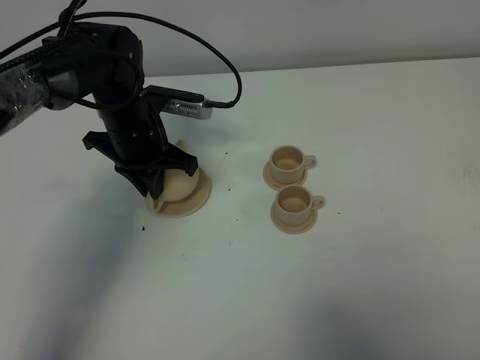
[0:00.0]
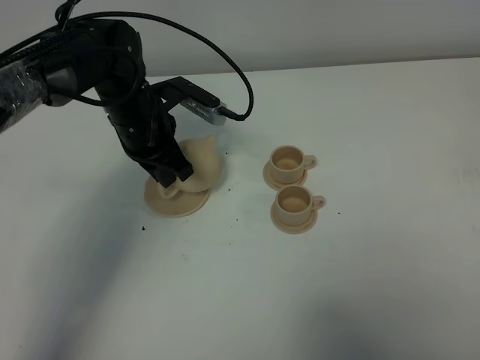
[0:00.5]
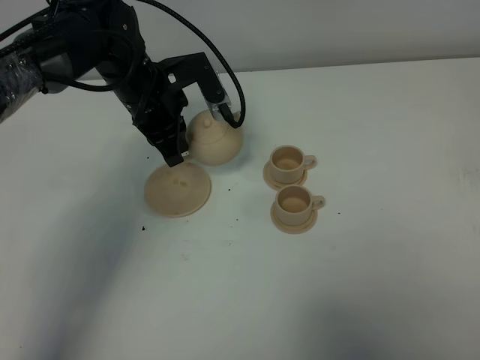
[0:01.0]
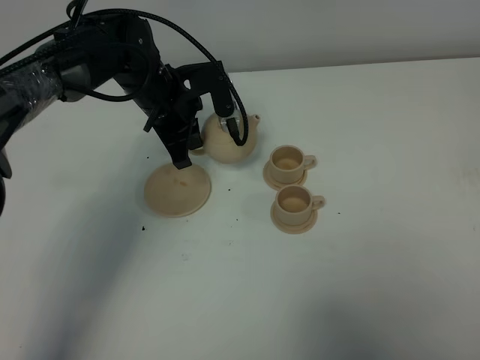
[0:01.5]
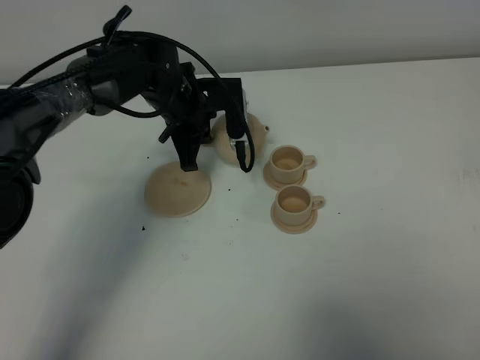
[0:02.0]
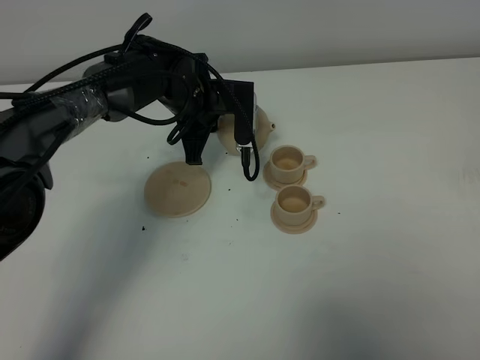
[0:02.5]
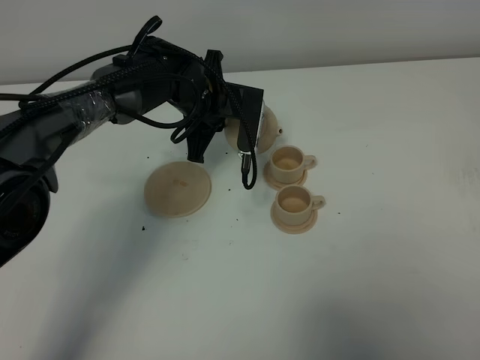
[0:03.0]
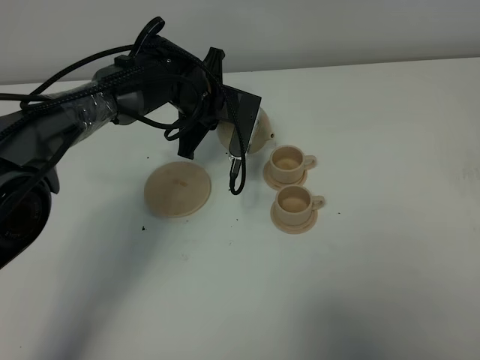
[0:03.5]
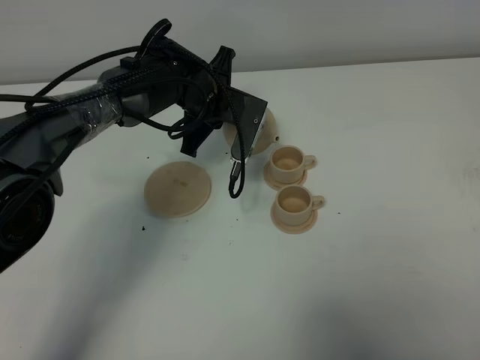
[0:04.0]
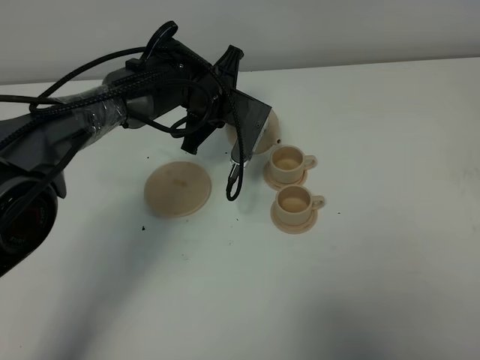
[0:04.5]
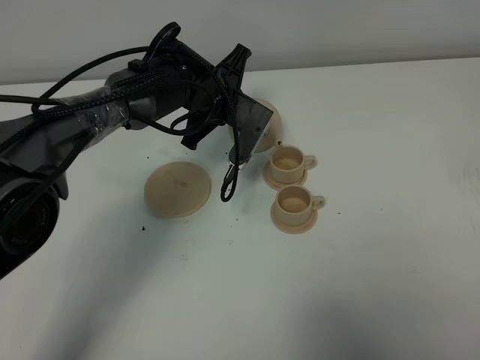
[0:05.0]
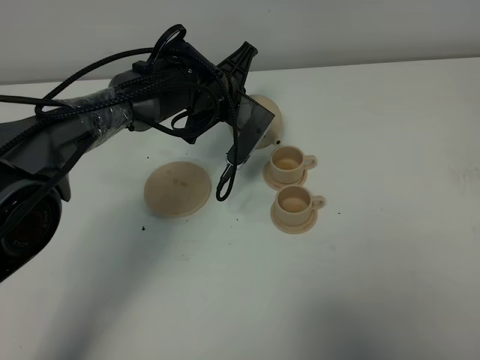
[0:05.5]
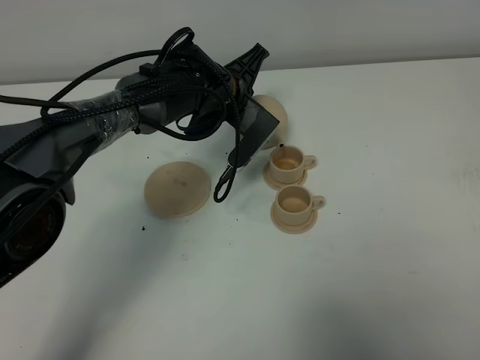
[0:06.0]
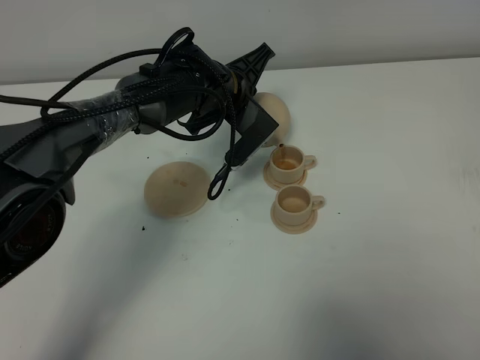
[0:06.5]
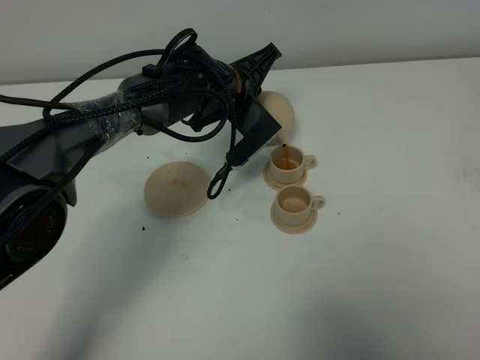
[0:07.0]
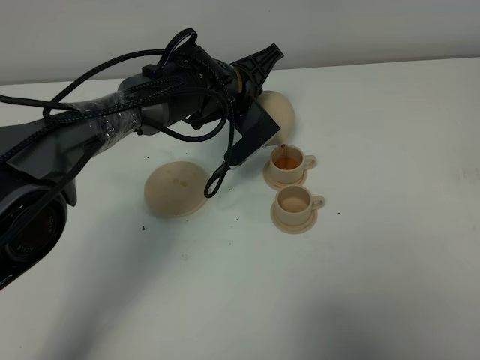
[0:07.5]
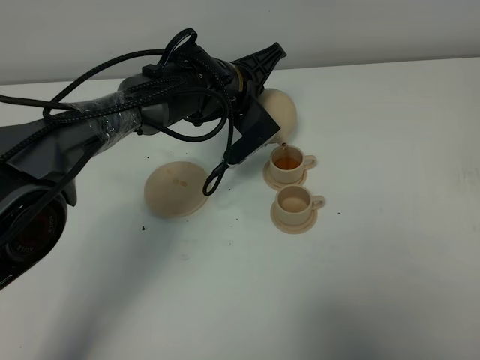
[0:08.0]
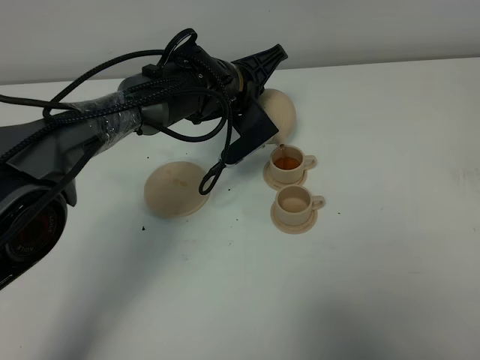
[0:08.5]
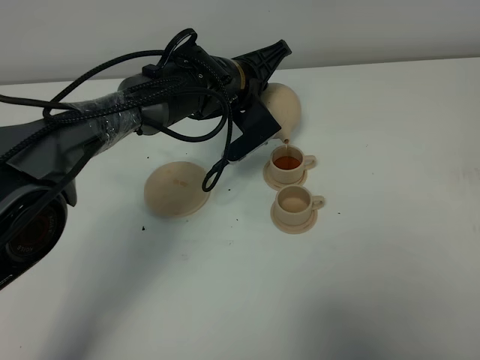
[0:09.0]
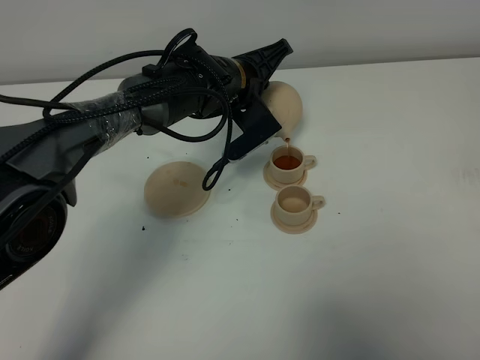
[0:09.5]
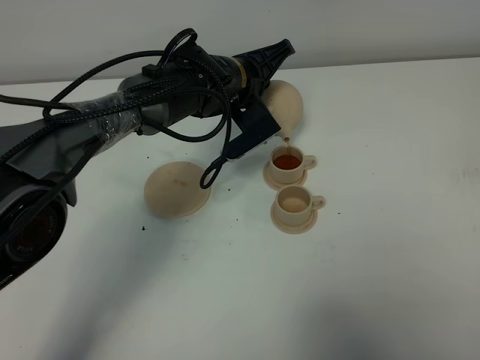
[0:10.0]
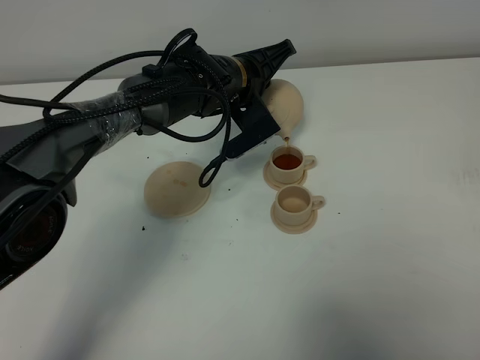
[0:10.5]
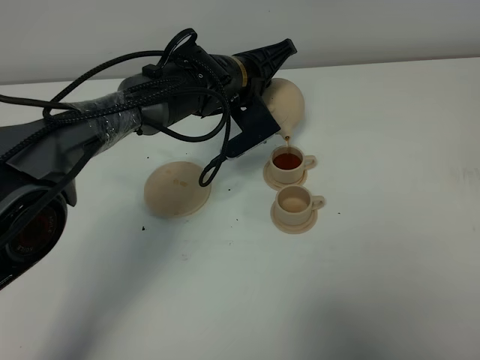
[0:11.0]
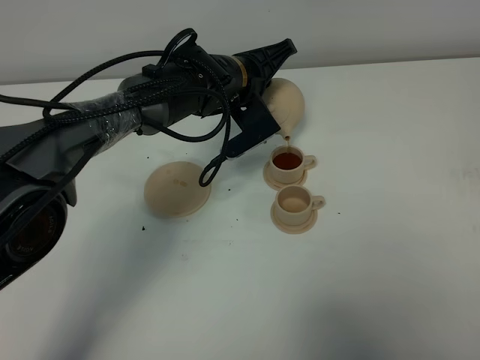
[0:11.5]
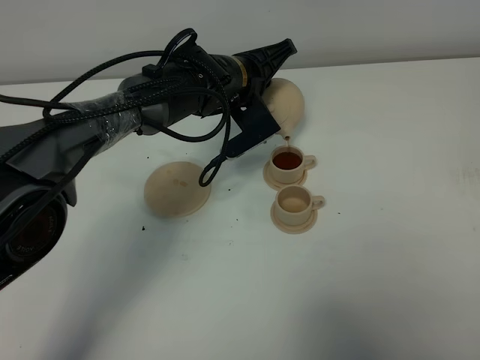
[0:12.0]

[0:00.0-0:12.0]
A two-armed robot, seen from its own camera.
Task of the whole recording: grasp the brown teapot and pour the tea into the two brown teacups one by one, put the brown teapot back in its original place.
0:00.0 to 0:02.0: The left gripper ends up approximately 5 cm from where it was.
0:06.0 to 0:08.0: The grippers move only a little.
0:08.0 to 0:10.0: The grippers stay close to where they were, moving slightly.
0:10.0 to 0:12.0: Neither gripper changes place.

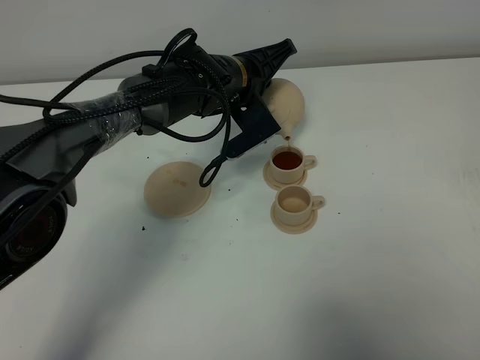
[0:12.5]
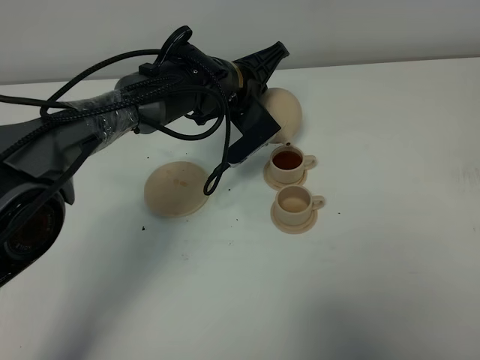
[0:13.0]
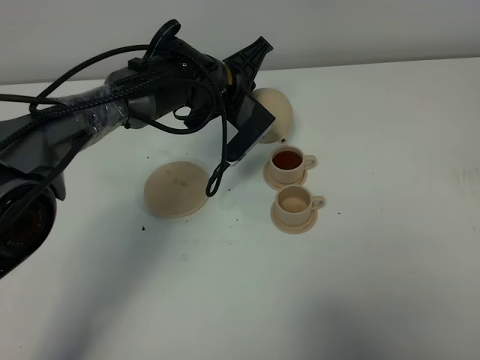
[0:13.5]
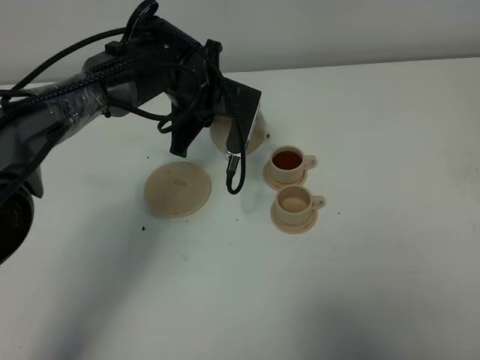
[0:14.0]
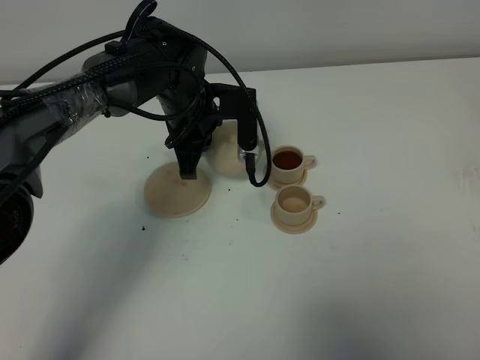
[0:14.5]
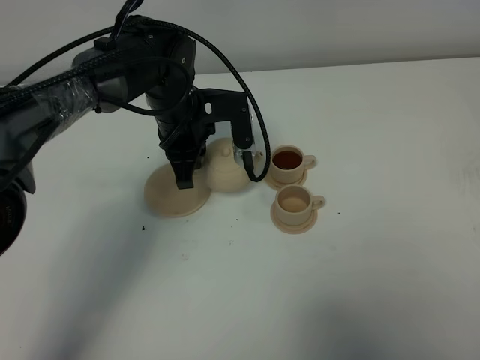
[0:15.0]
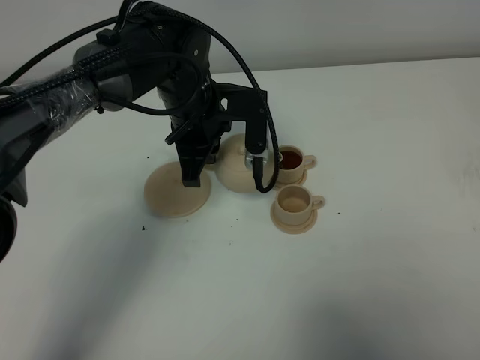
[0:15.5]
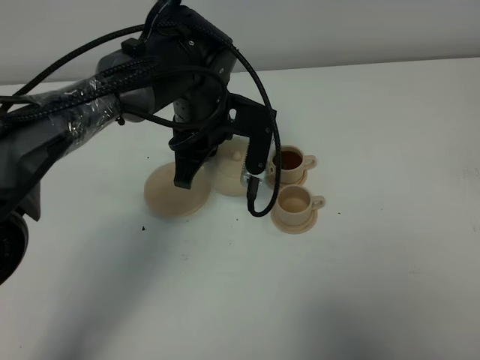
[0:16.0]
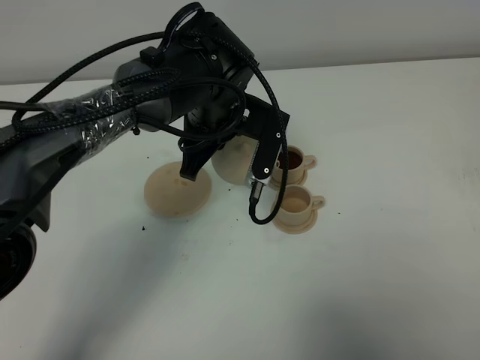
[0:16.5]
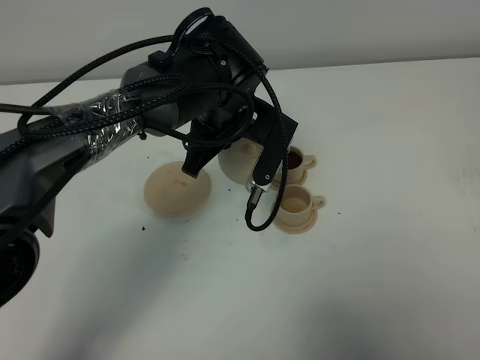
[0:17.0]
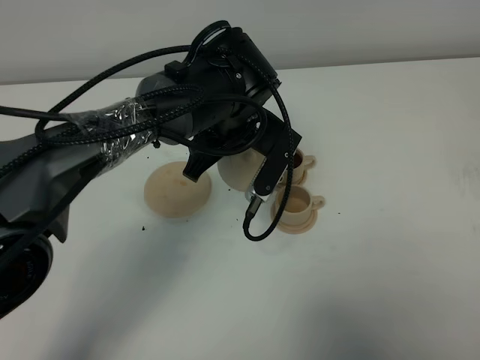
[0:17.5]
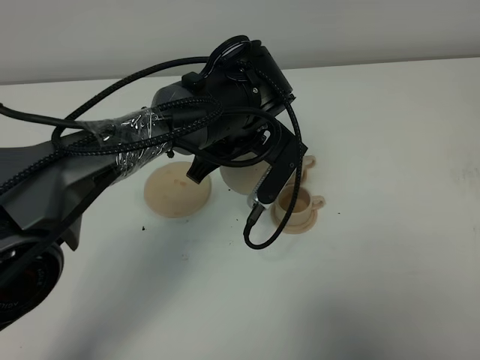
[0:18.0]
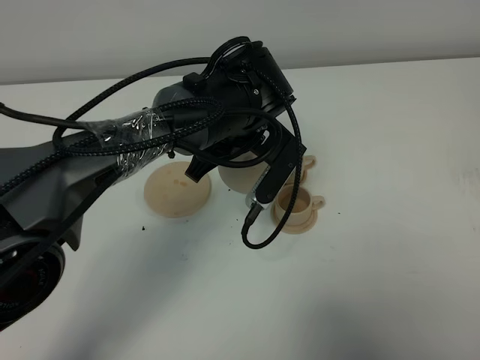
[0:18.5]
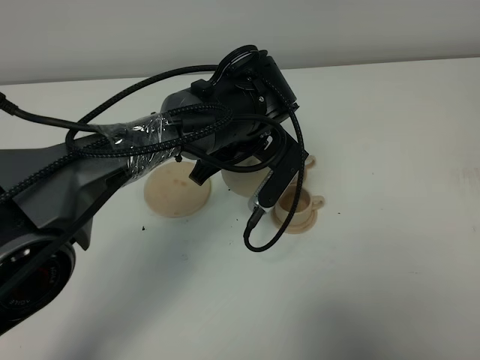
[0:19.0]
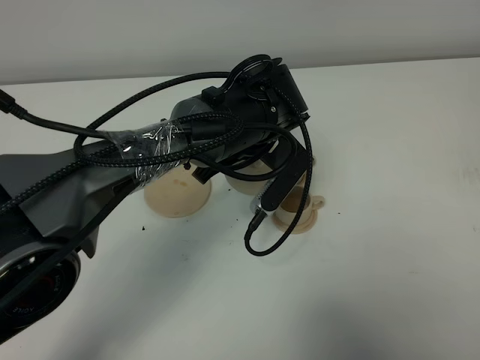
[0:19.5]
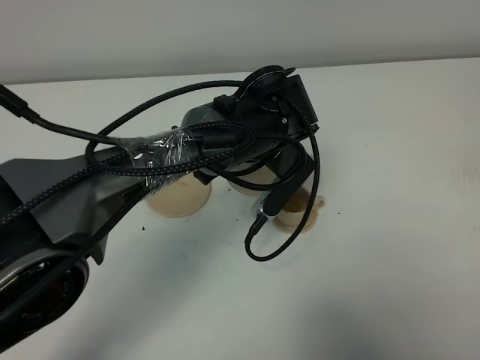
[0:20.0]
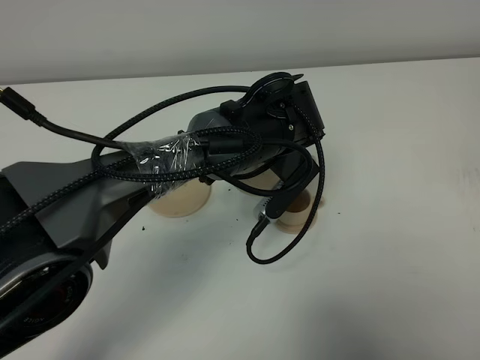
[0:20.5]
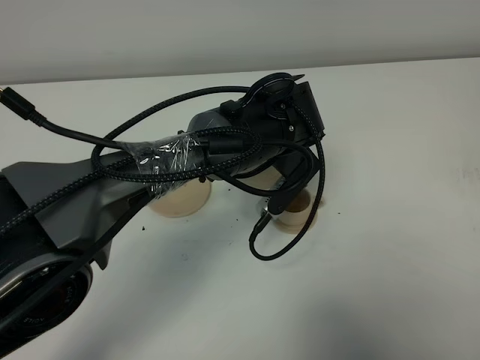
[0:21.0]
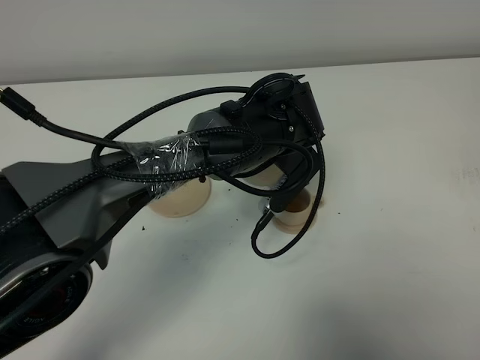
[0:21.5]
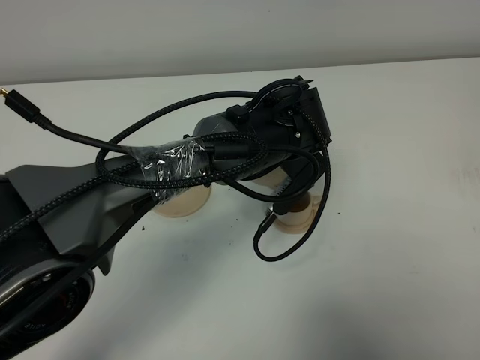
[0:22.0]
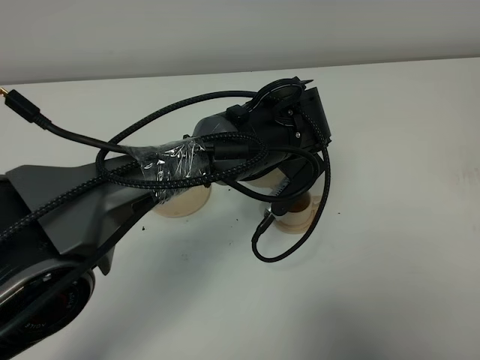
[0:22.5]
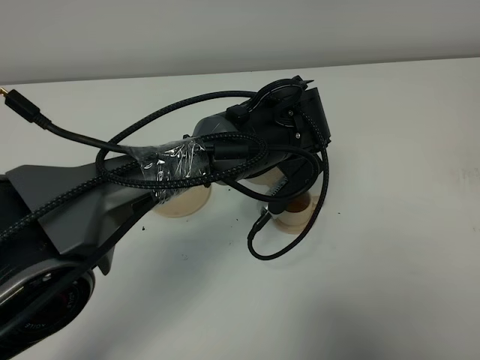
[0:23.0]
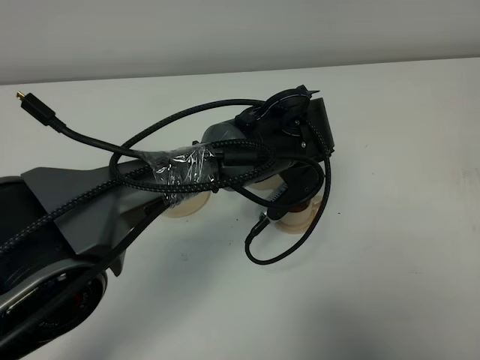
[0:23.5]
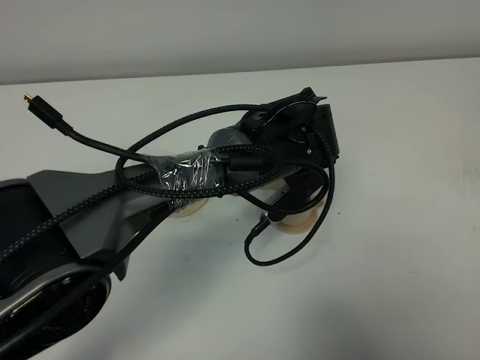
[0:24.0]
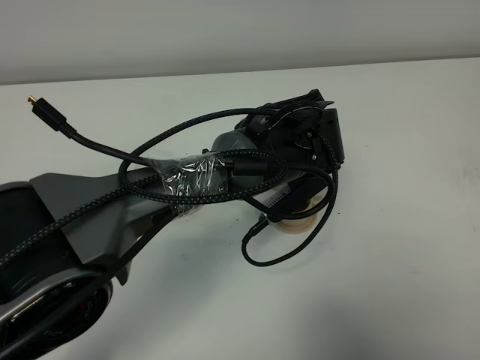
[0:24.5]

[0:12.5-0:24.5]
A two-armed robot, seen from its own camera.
Task of the whole recording: grasp the brown teapot and pour the tea into the two brown teacups one by one, put the brown teapot back in its original place.
0:12.5 to 0:14.5: The left gripper travels to the left by about 5 cm.
0:14.5 to 0:16.5: The left gripper ends up approximately 5 cm from where it was.
0:16.5 to 0:18.5: There are only small adjustments of the grippers.
0:20.5 to 0:24.5: The grippers move only a little.

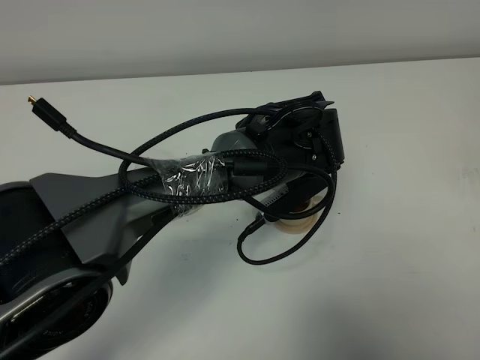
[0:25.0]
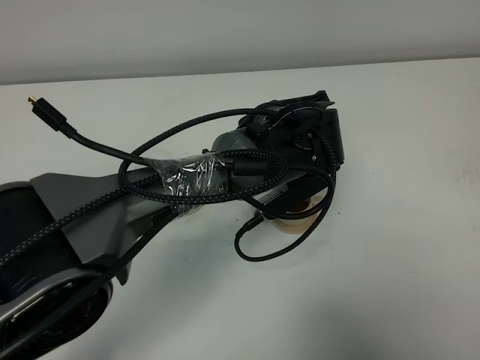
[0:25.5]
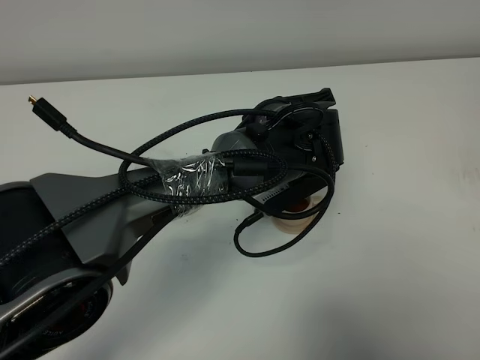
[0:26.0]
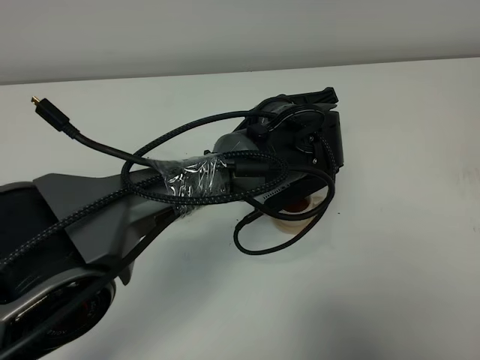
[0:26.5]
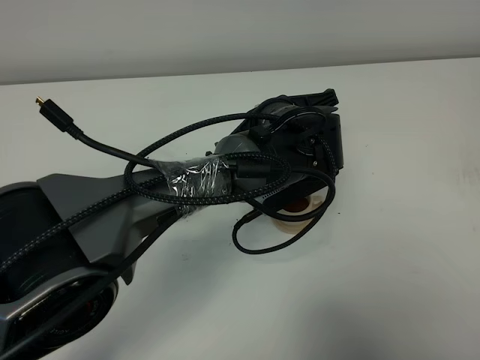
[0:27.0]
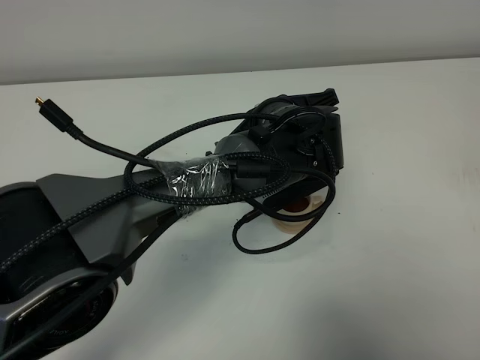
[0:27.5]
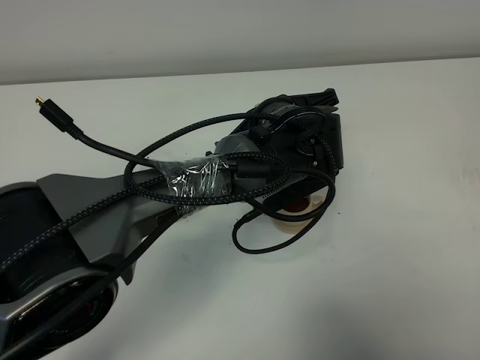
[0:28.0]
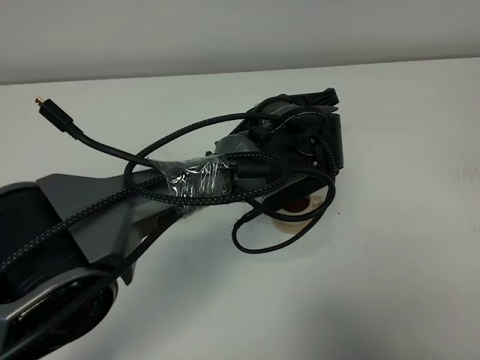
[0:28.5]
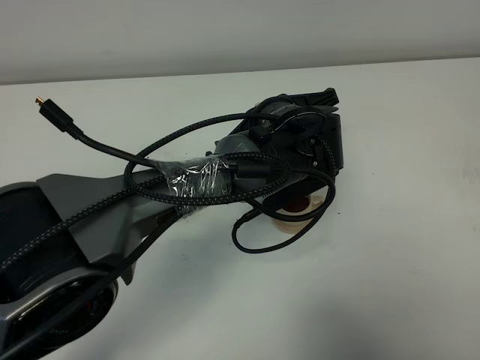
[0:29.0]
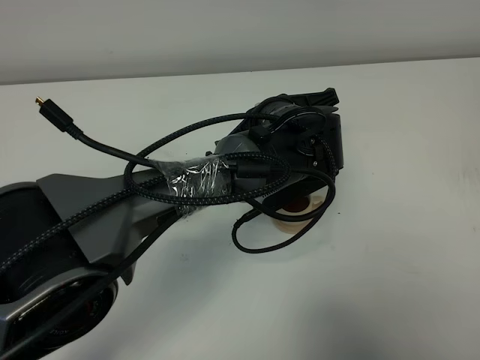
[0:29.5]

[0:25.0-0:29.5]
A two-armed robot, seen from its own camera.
Task of the whole recording: grasp the brown teapot and pour the tea into the two brown teacups one by one, put the brown teapot back in its original place.
0:25.0 to 0:27.0: The grippers make only small movements.
0:27.0 to 0:29.5: Both grippers stay put.
